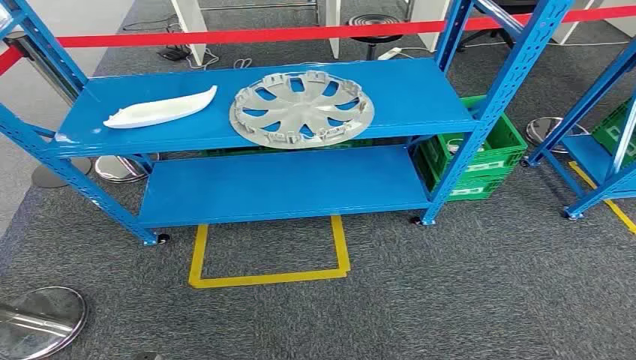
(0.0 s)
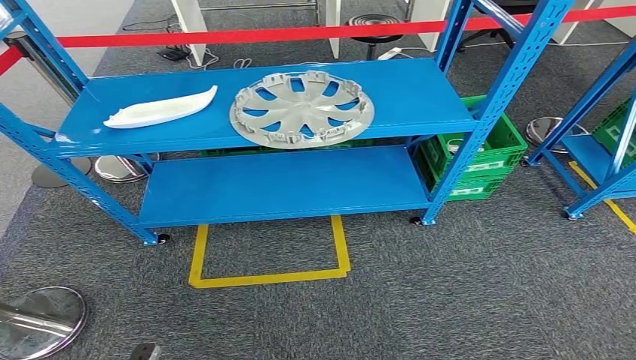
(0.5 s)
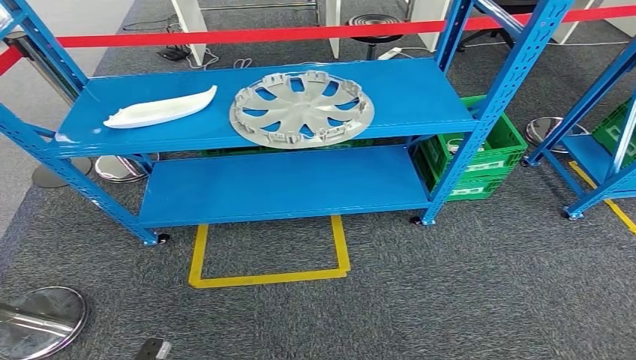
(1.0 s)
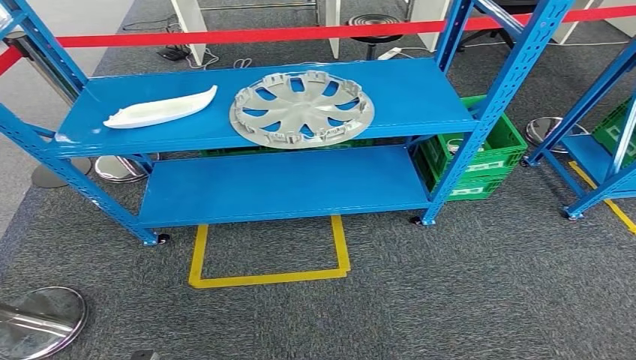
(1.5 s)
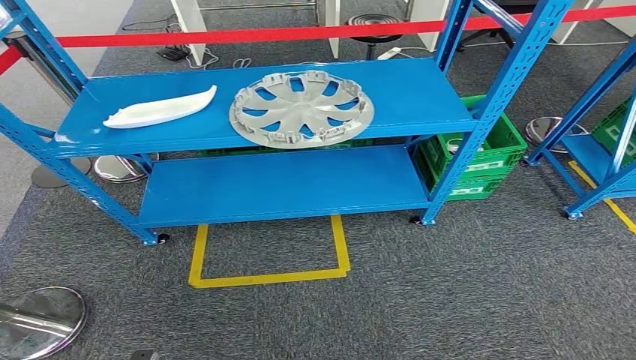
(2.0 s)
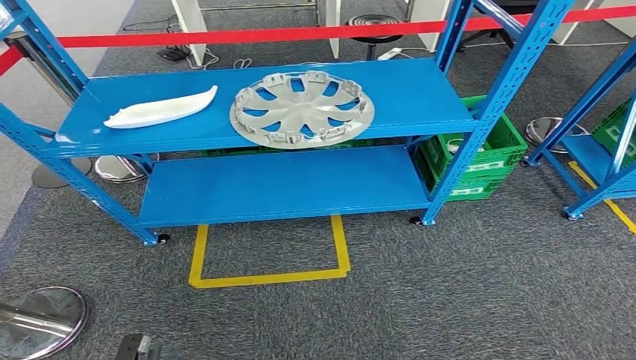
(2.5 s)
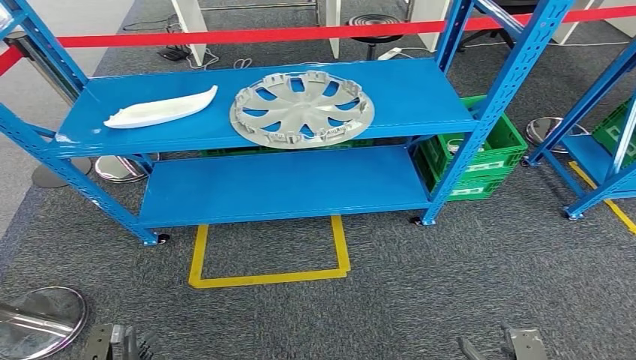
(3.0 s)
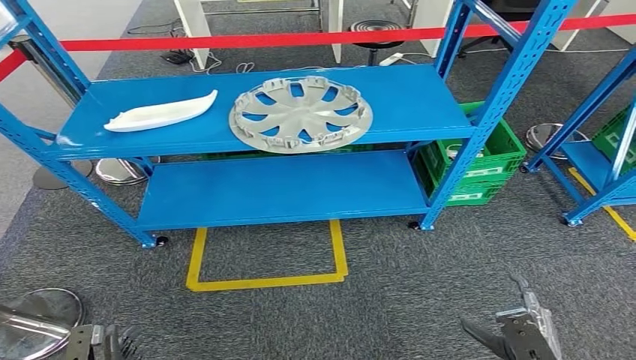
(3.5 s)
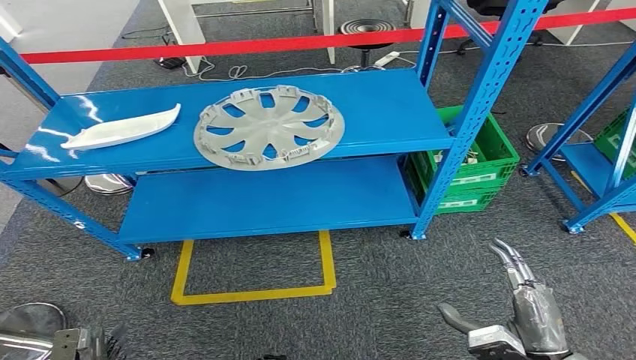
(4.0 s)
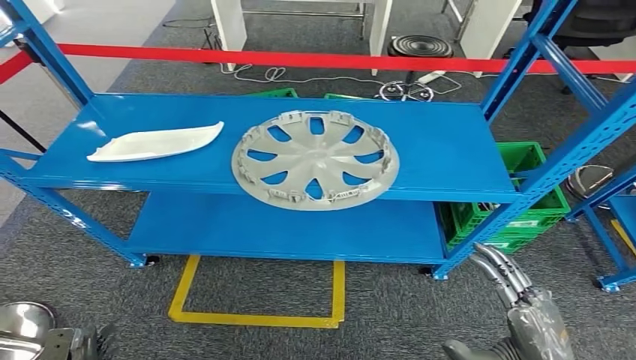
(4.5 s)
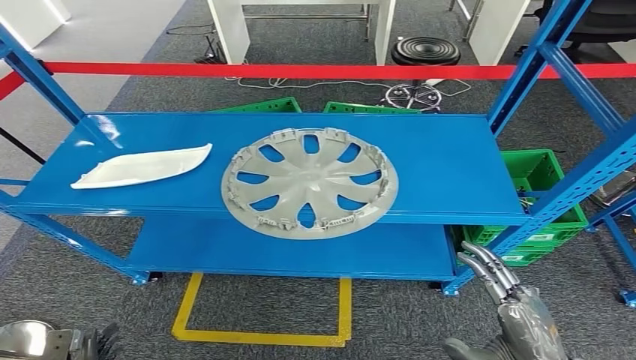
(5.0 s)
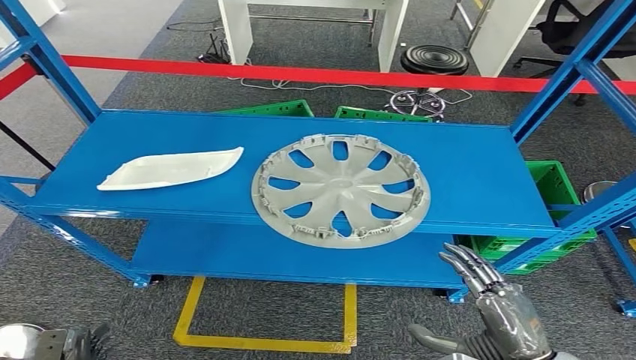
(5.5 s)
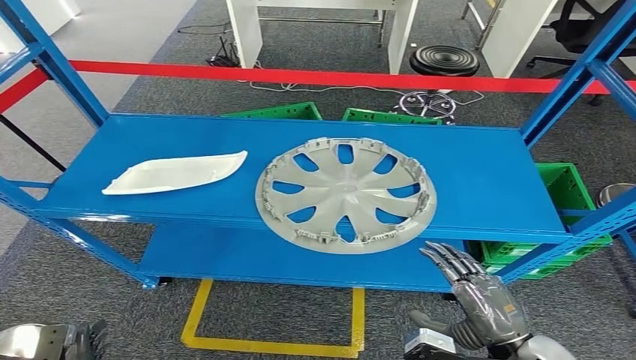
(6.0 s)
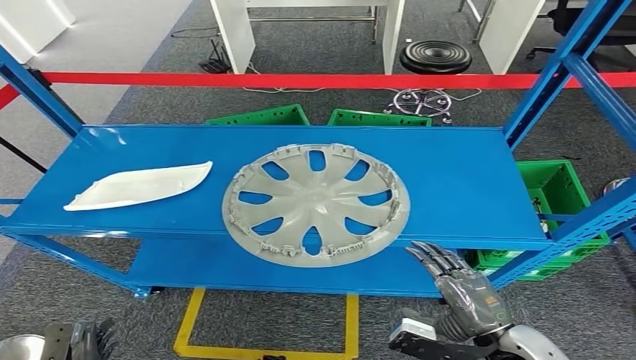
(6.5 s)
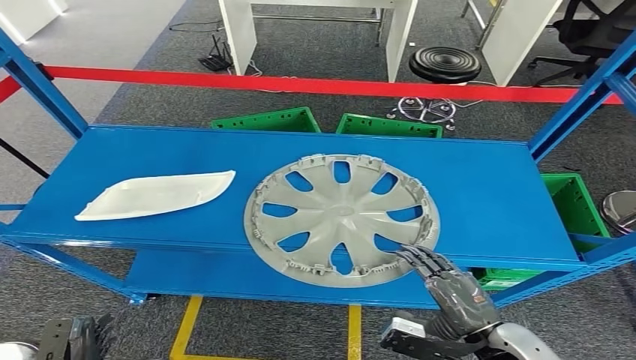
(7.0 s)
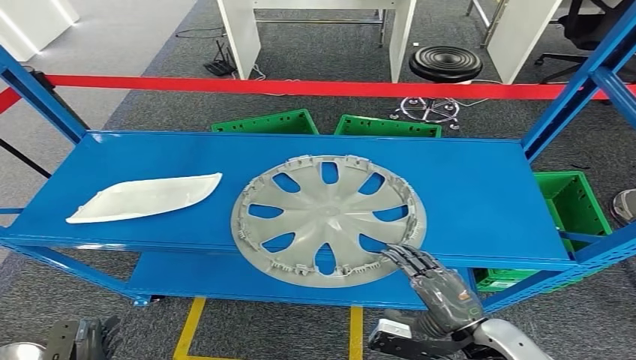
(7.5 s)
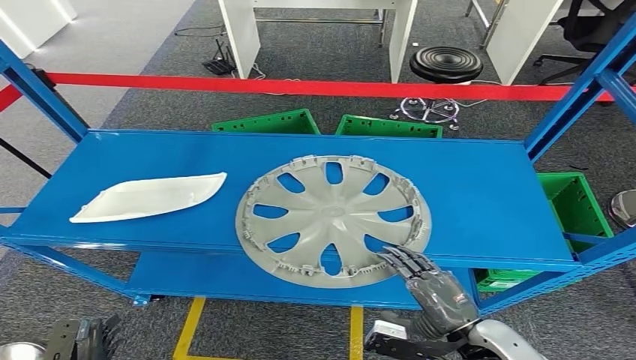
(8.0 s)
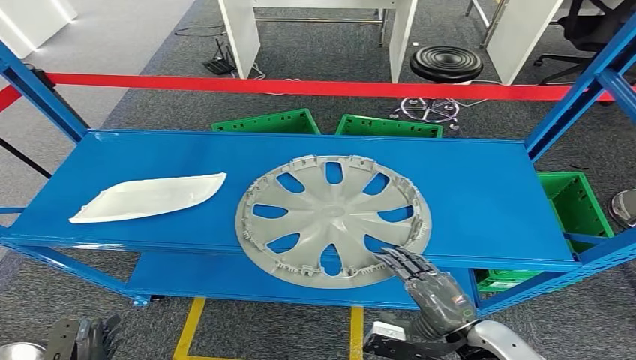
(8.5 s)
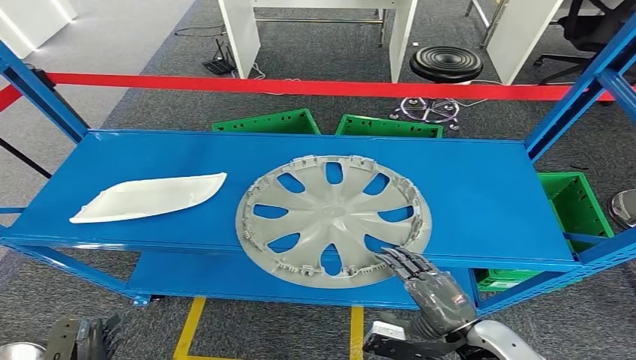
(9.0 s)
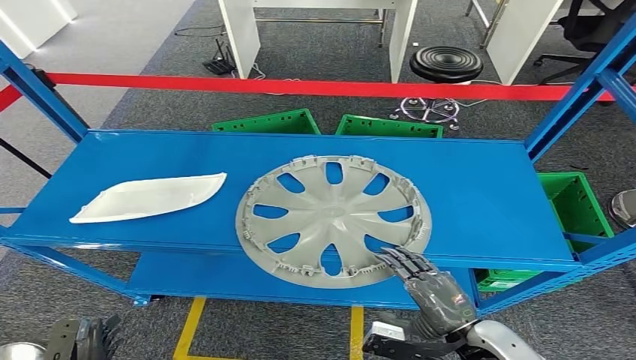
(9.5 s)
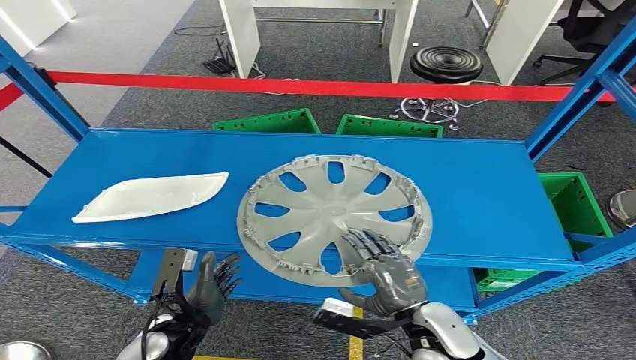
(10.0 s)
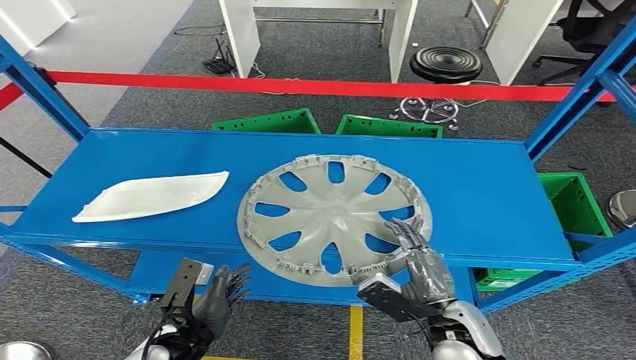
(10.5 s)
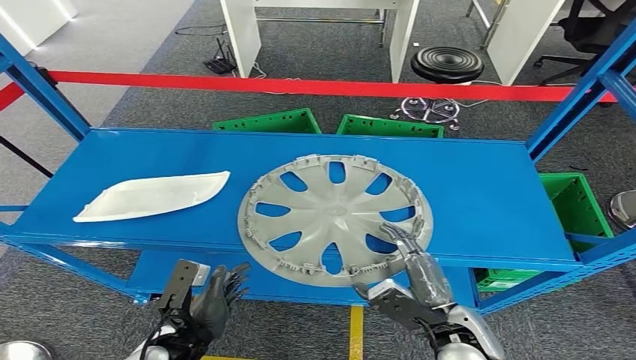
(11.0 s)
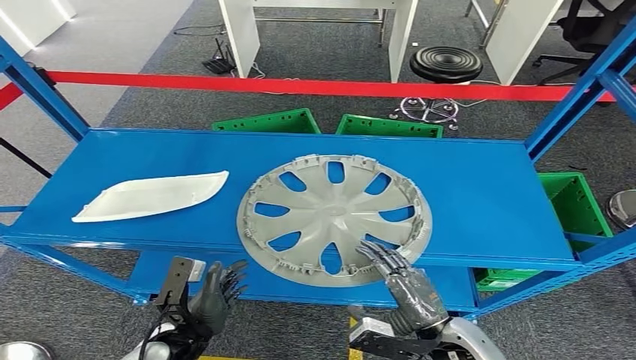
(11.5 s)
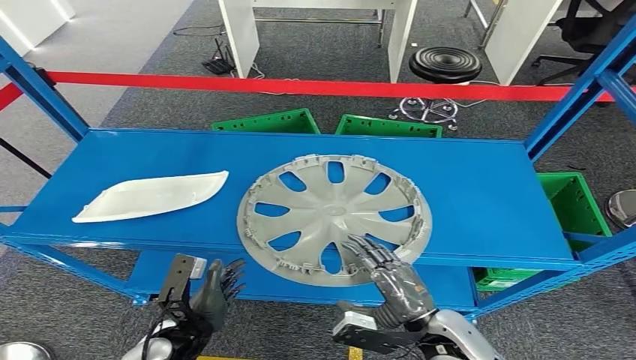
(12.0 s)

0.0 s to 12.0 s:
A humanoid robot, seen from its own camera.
8.0 to 10.0 s: The right hand travels to the left by roughly 5 cm; the left hand is displaced to the right, upward and forward by roughly 25 cm.

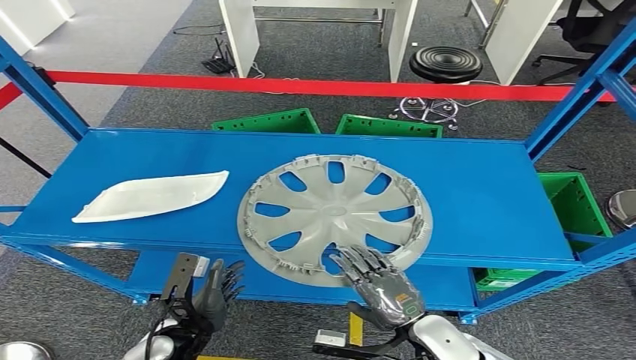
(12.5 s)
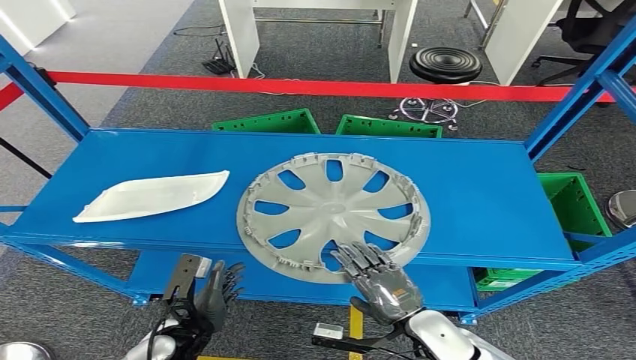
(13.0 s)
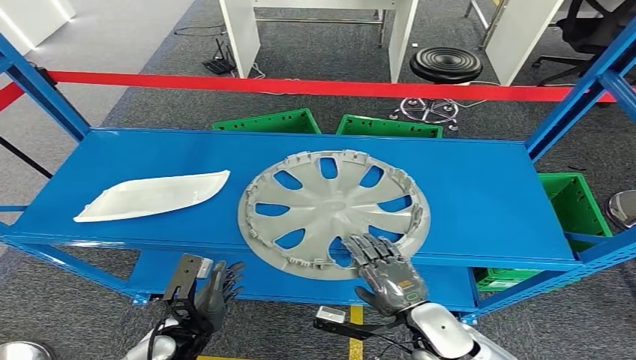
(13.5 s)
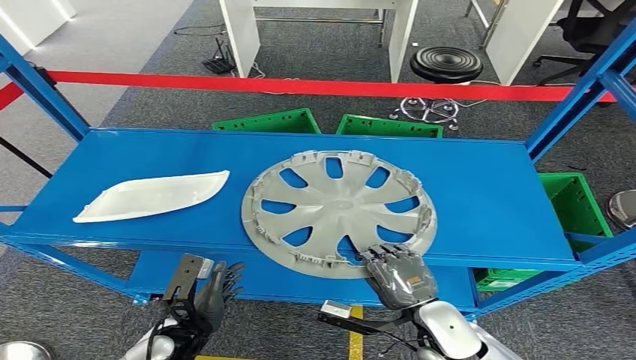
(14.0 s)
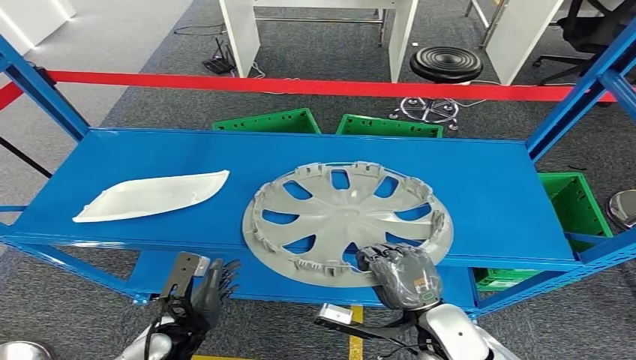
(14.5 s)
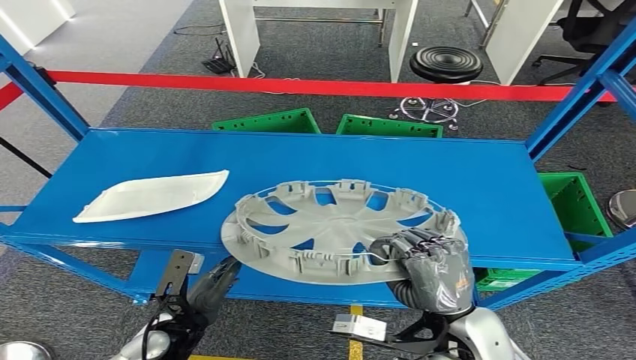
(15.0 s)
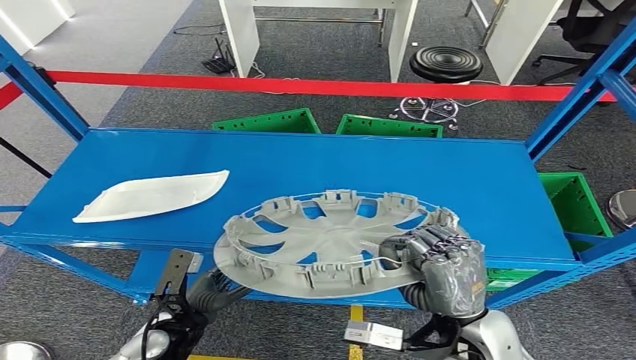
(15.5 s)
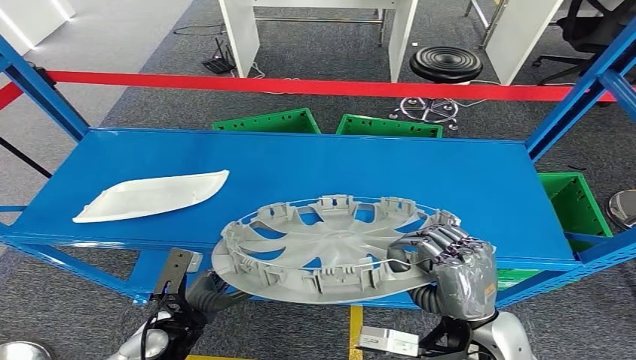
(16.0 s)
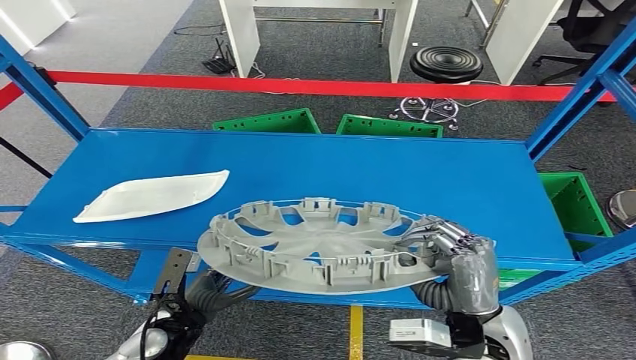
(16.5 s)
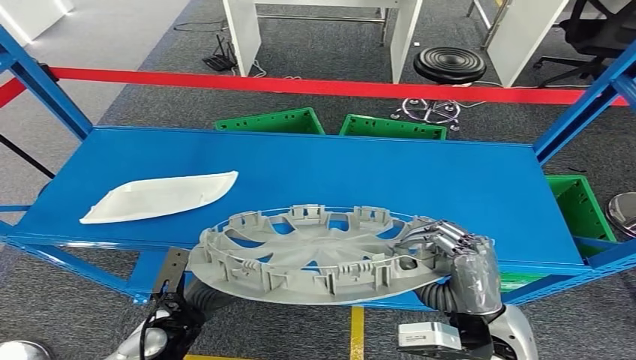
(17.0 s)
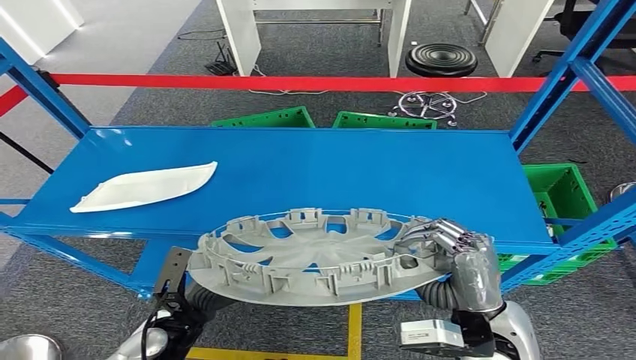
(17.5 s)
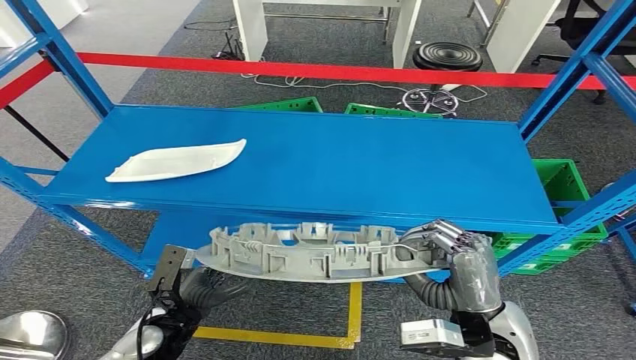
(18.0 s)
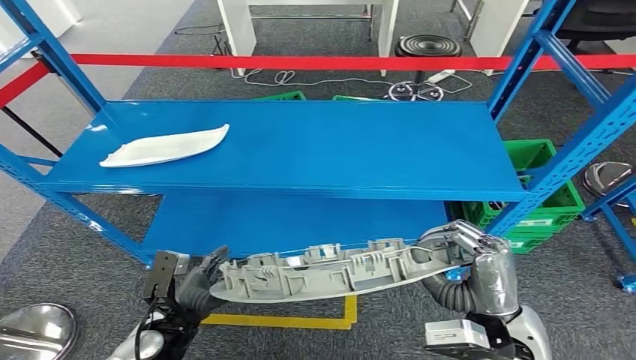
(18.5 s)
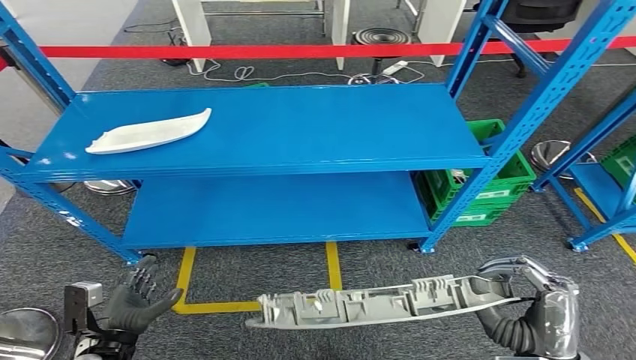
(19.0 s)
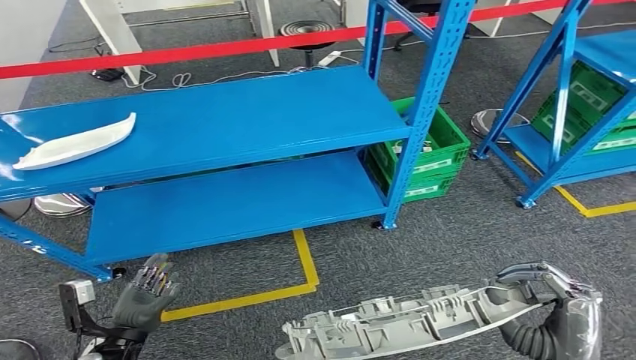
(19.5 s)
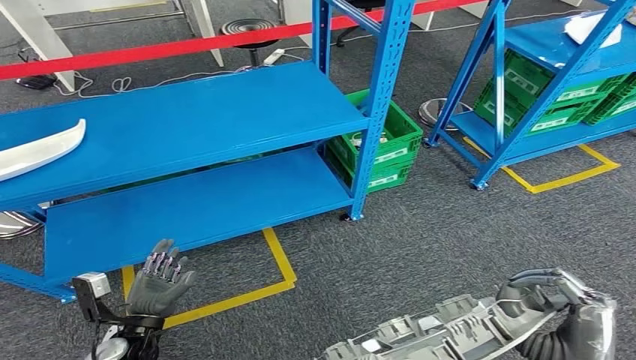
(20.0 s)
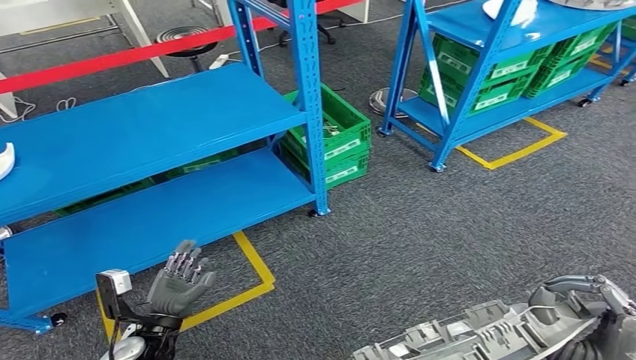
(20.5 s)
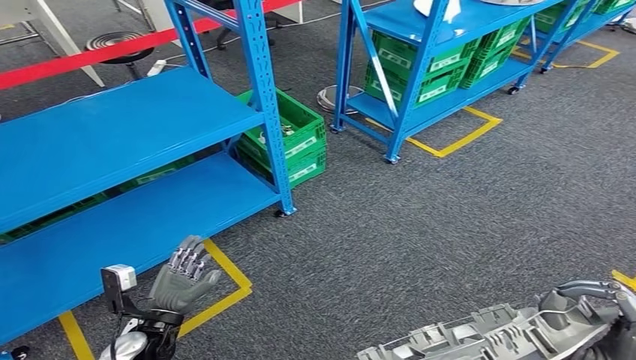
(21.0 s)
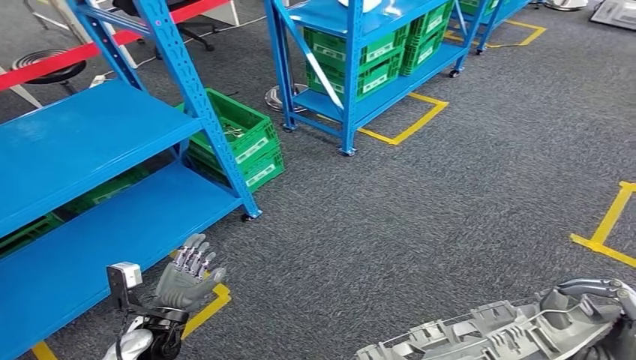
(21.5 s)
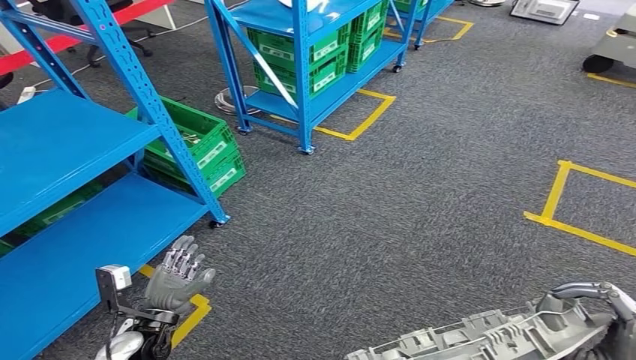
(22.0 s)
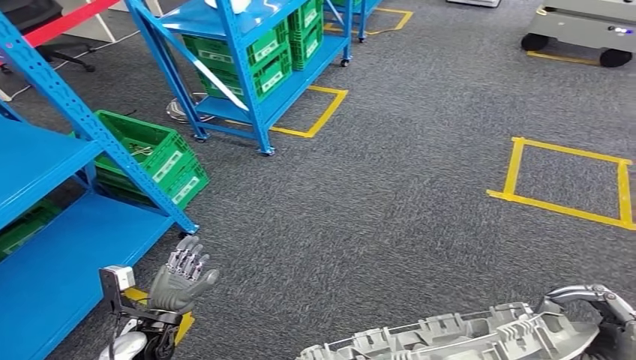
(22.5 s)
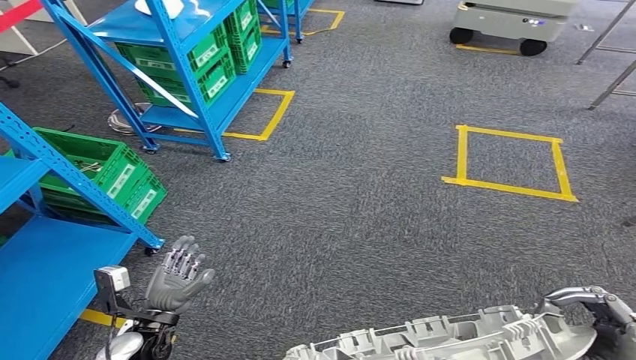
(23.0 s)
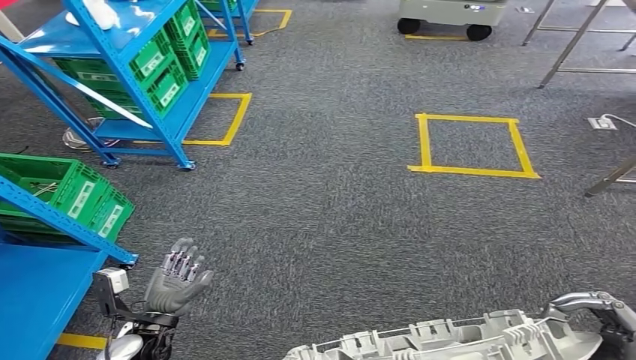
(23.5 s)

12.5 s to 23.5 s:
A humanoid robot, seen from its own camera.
Step, 12.5 to 16.5 s: Pick up the small component from the shelf.
12.5 to 14.5 s: The hands stay close to where they were, moving slightly.
14.5 to 16.0 s: The right hand goes approximately 5 cm upward.
